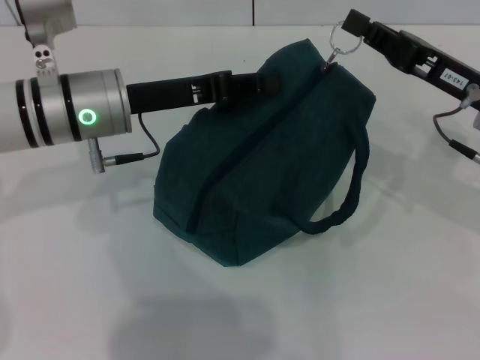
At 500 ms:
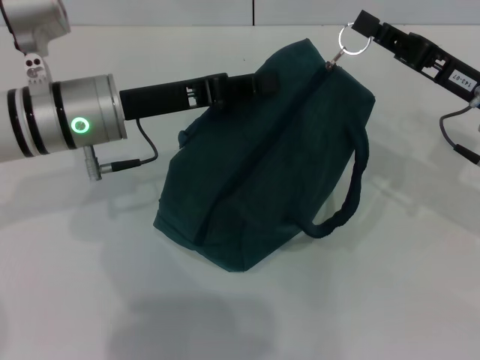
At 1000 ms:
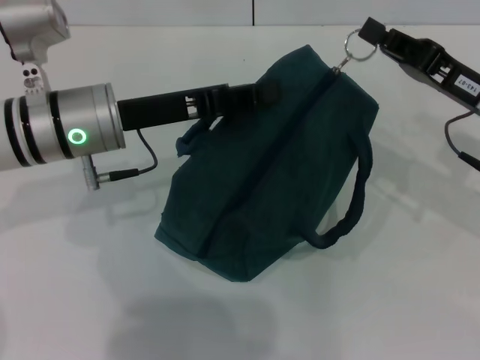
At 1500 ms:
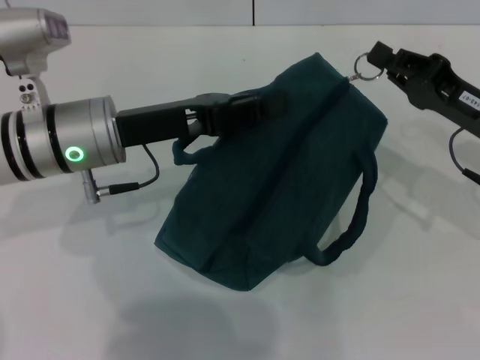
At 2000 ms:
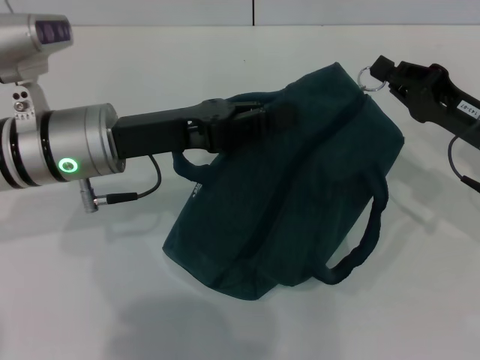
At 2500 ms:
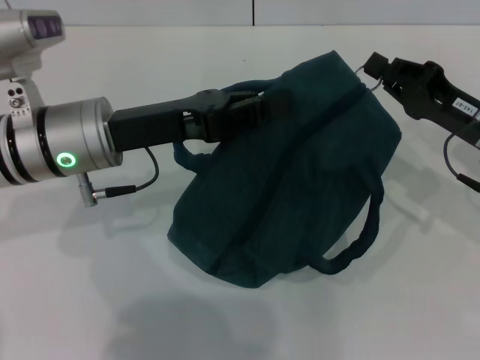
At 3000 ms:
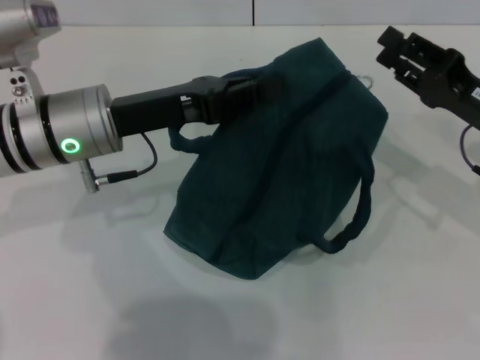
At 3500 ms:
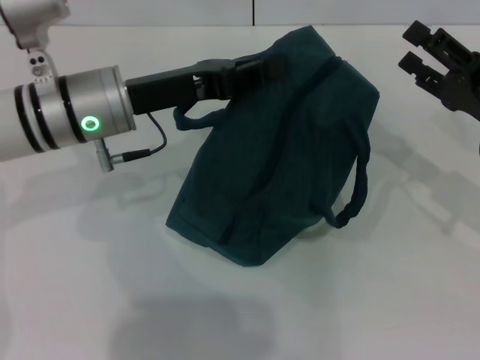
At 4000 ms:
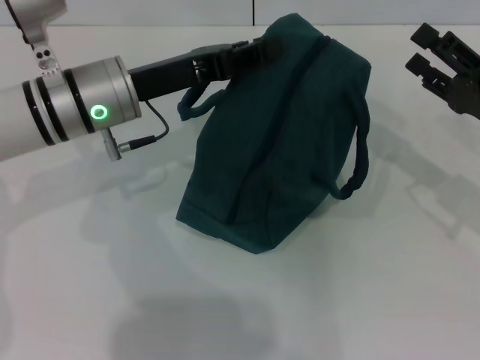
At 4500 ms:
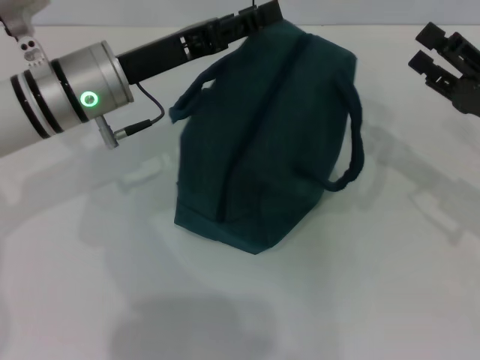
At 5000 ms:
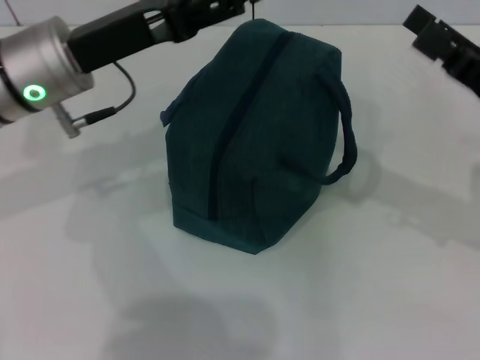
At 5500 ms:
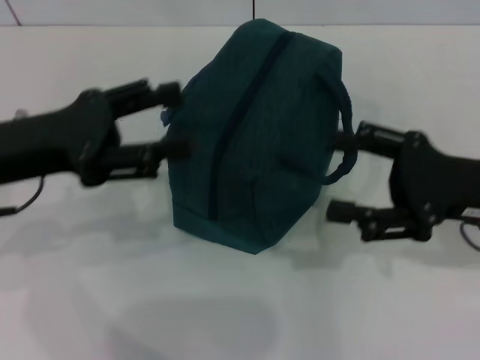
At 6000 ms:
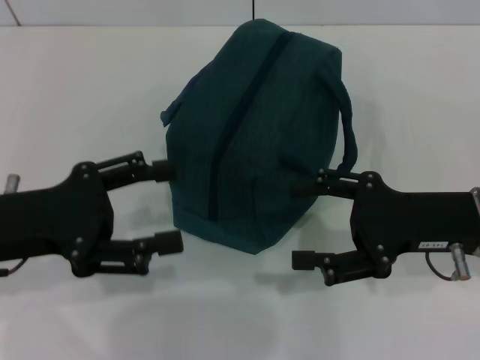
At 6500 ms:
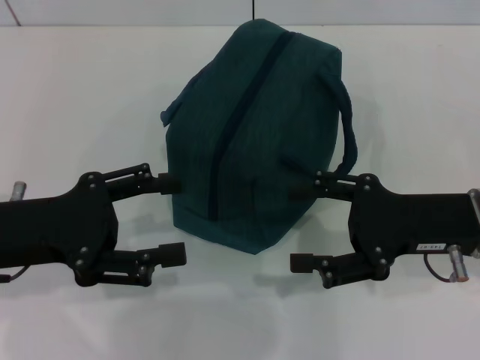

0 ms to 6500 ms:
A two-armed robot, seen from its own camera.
Step, 0 ms to 2500 ms: Zip up the lunch bag with your right hand.
Step, 3000 ms to 4000 ms: Hold the lunch bag with your left hand.
0 ms to 2000 ms: The right gripper moves roughly 5 cm.
2000 ms to 4500 ms: The left gripper opens its fingers. Meanwhile the right gripper opens.
4500 ms to 6500 ms: The right gripper moves to the left, roughly 5 cm. The left gripper travels backward and to the left by roughly 15 cm, and opens.

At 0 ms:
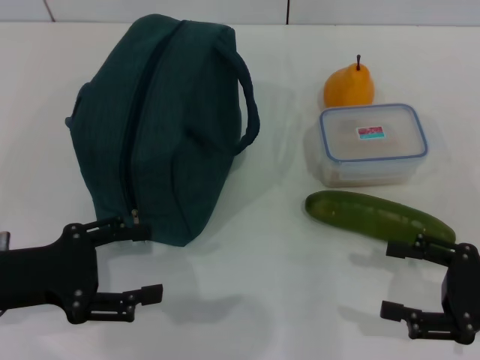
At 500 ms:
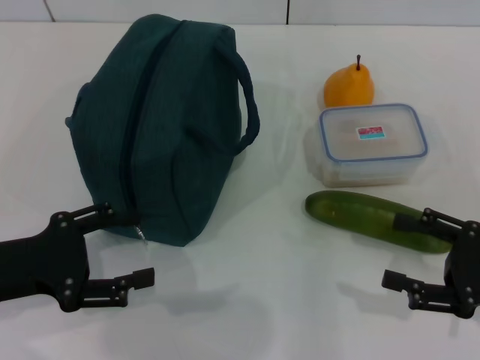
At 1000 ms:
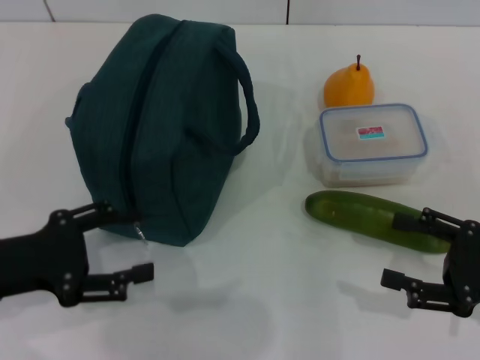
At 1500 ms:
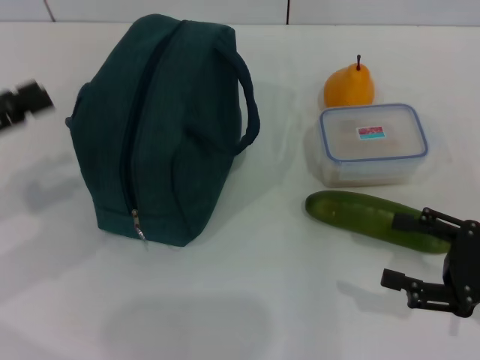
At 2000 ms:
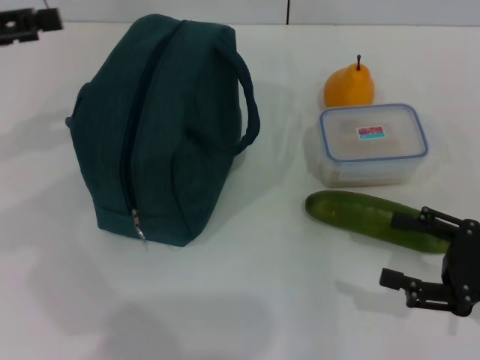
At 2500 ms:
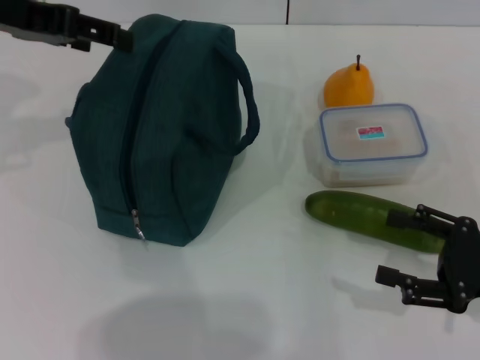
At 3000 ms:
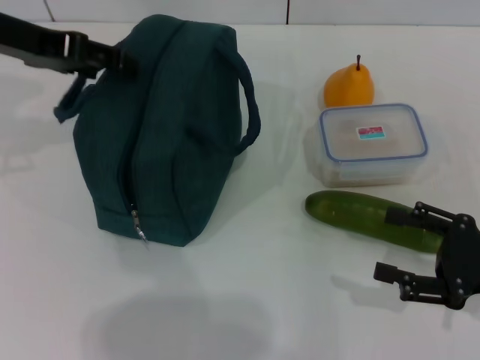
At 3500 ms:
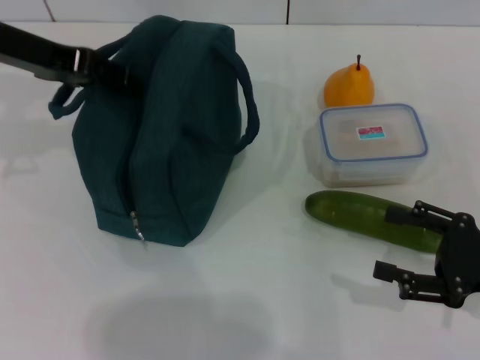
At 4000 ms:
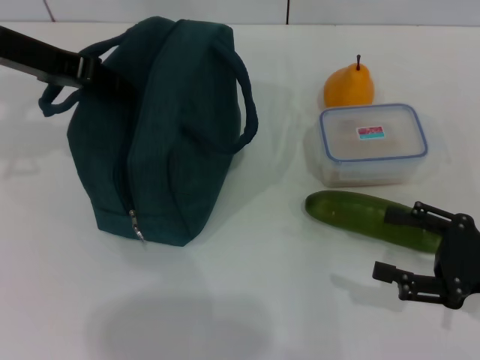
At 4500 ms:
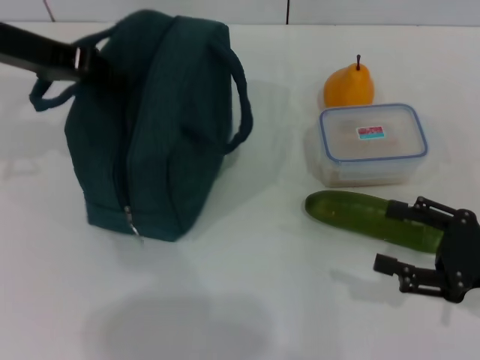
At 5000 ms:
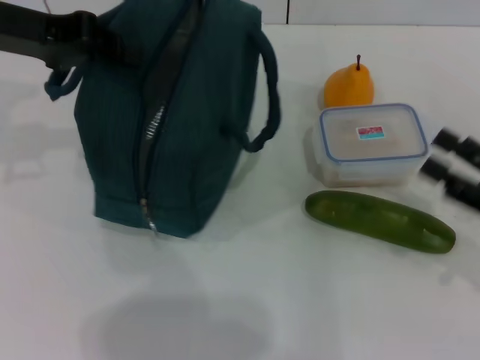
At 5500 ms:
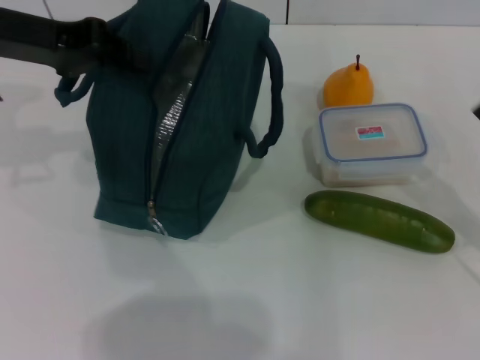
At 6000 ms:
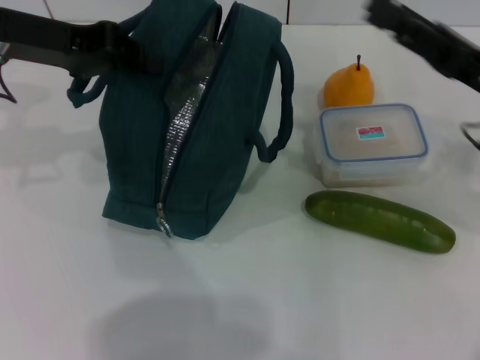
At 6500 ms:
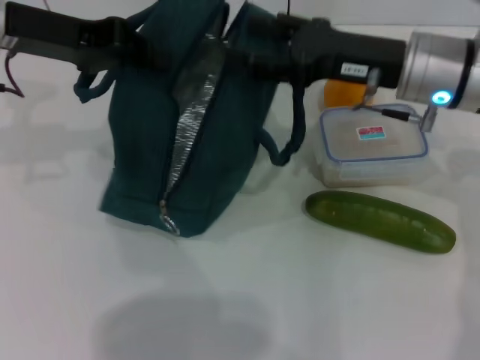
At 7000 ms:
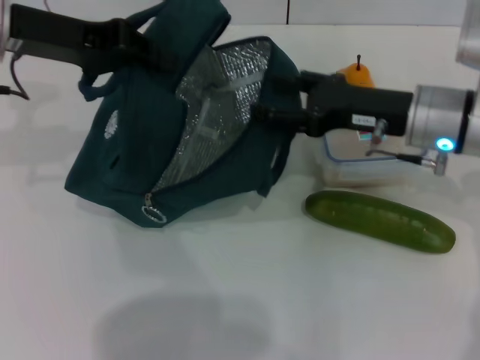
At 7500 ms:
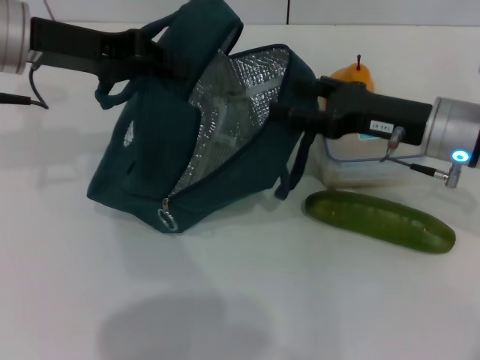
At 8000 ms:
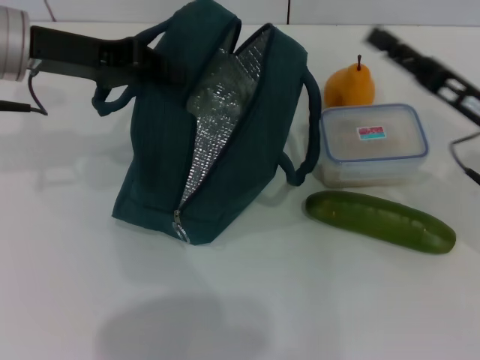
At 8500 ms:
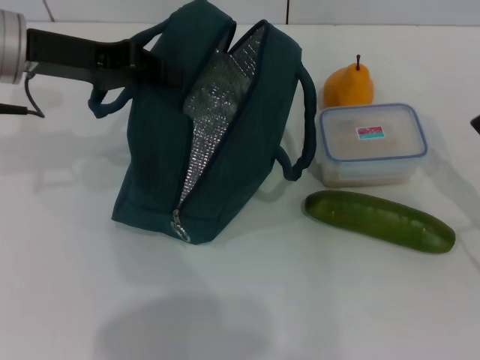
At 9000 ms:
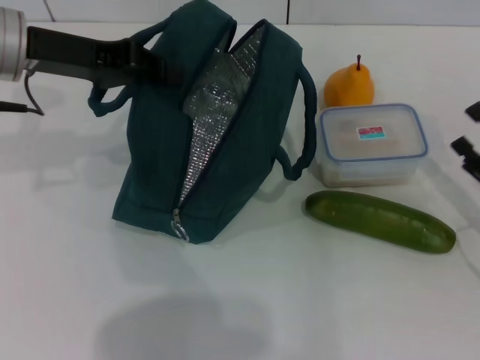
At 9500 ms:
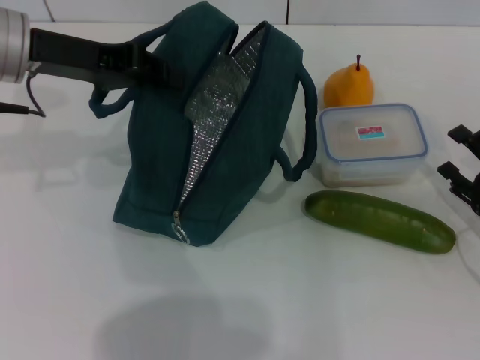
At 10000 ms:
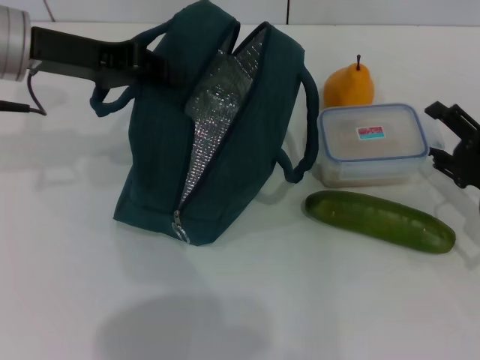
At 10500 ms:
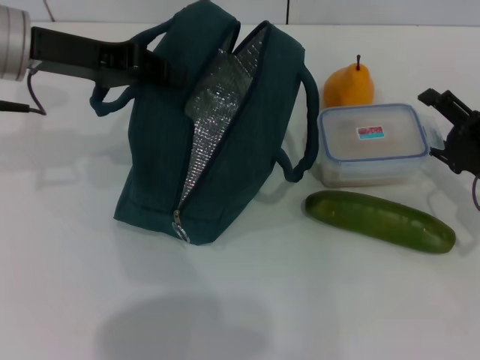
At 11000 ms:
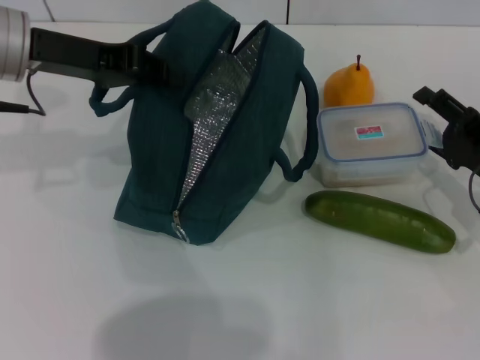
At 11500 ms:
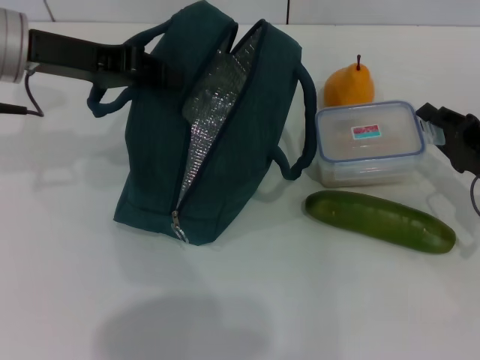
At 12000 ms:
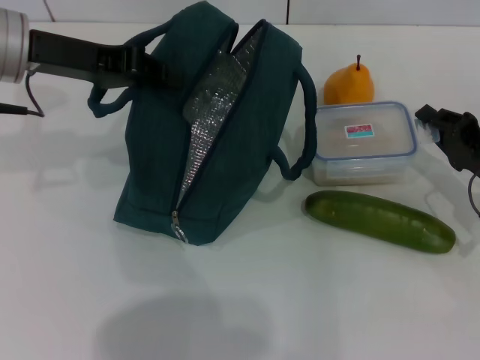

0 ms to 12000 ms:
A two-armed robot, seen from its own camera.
Step, 0 ms to 5500 ms: Hold the lunch bag with your left hand.
0 ms to 2000 ms: The left gripper heads upward and forward, covering approximately 20 cm.
2000 ms to 4000 ms: The left gripper heads to the right and forward, covering about 10 cm, and closes.
4000 ms to 6000 ms: The left gripper closes up, while the right gripper shifts about 15 cm forward, upward and to the left.
6000 ms to 8000 ms: The right gripper goes to the left and returns, roughly 10 cm each way.
8000 ms to 10000 ms: The right gripper heads downward, covering roughly 5 cm.
10000 ms to 12000 ms: The right gripper closes its fingers.

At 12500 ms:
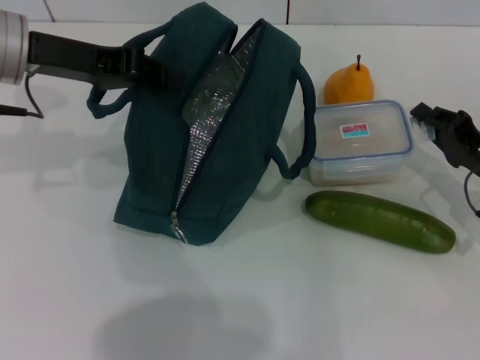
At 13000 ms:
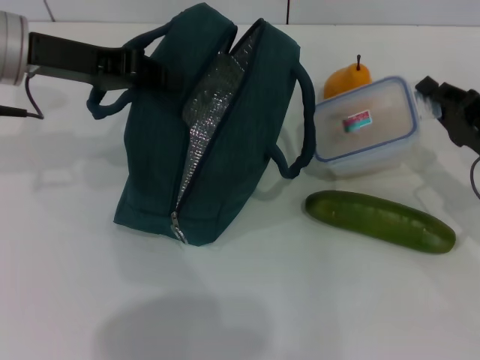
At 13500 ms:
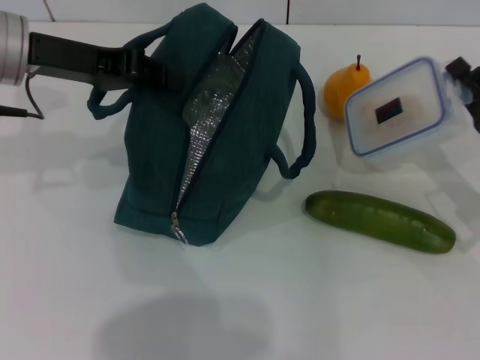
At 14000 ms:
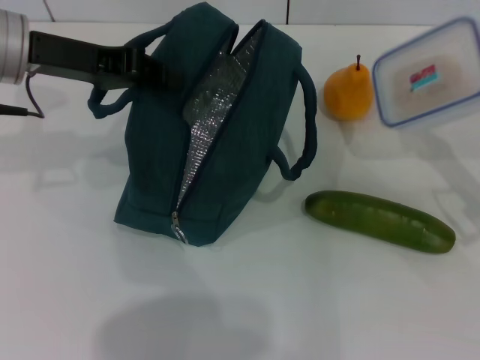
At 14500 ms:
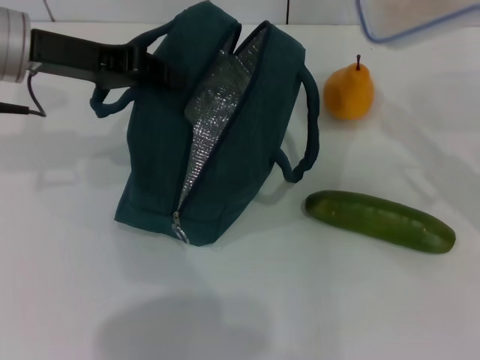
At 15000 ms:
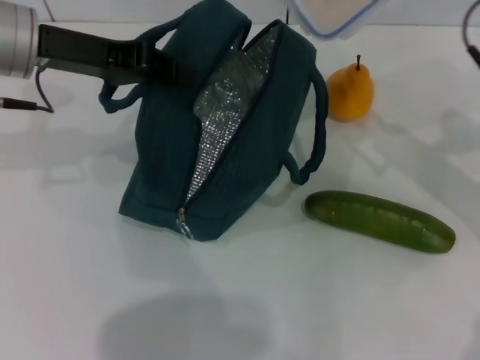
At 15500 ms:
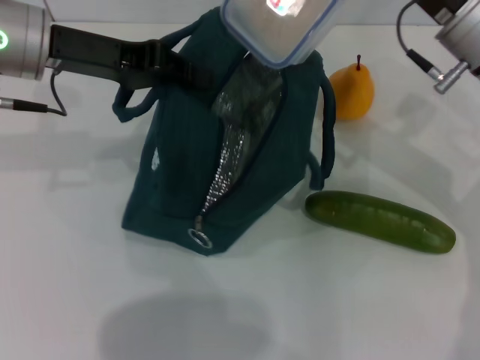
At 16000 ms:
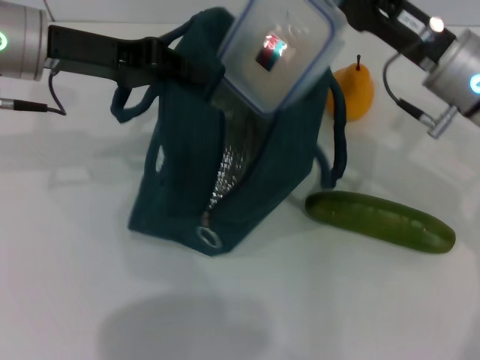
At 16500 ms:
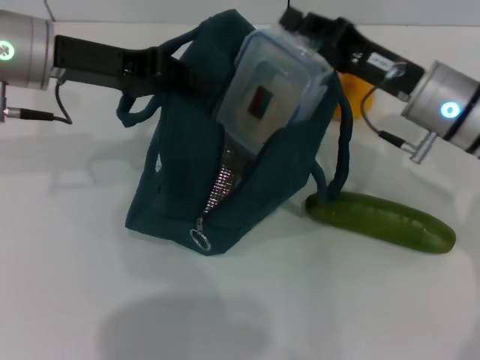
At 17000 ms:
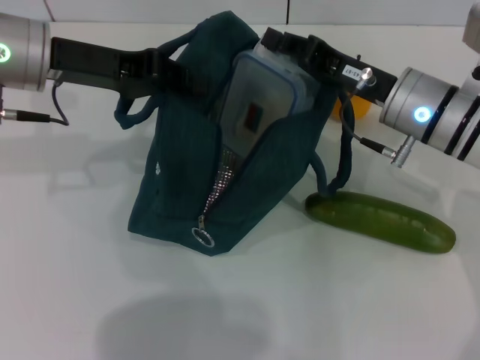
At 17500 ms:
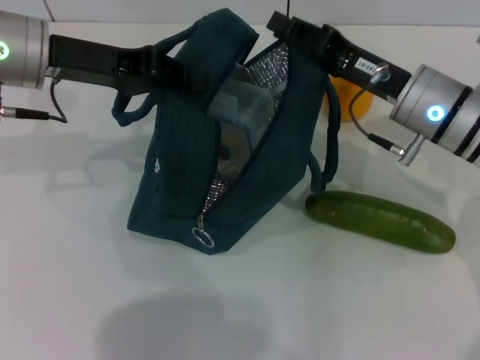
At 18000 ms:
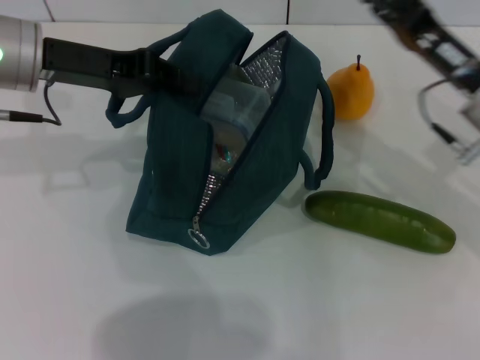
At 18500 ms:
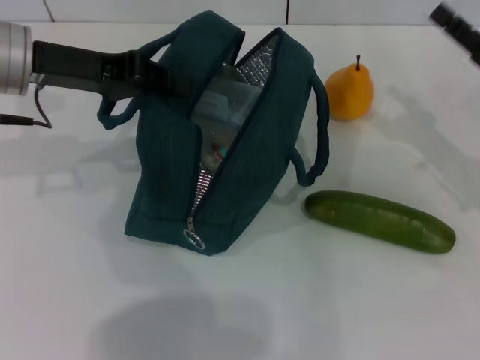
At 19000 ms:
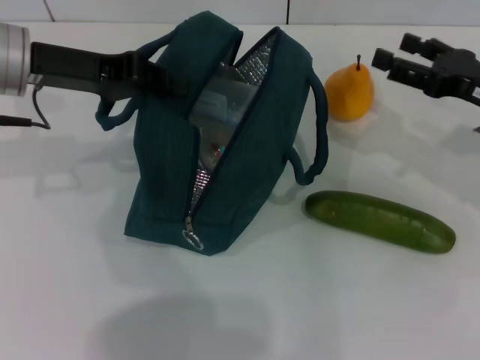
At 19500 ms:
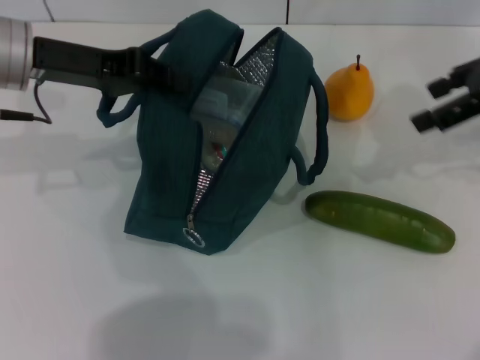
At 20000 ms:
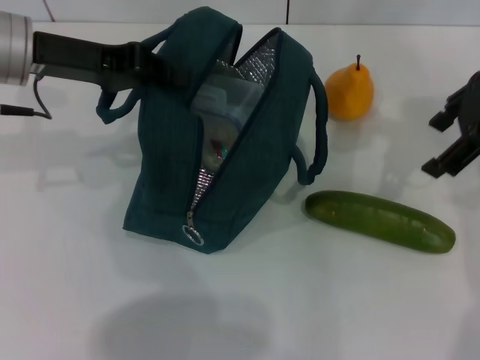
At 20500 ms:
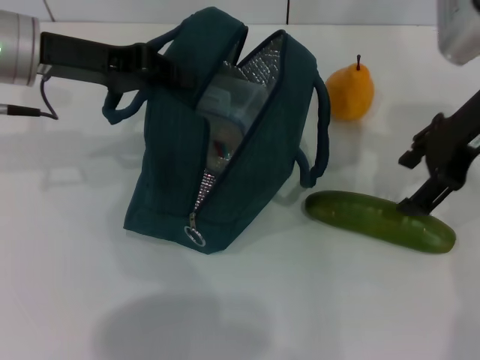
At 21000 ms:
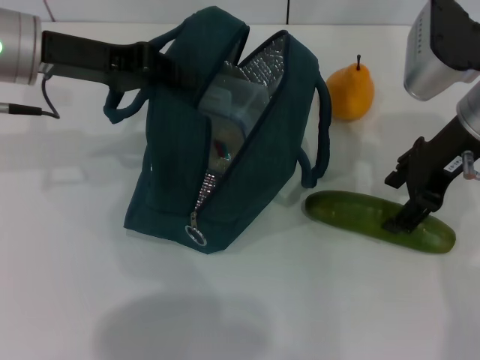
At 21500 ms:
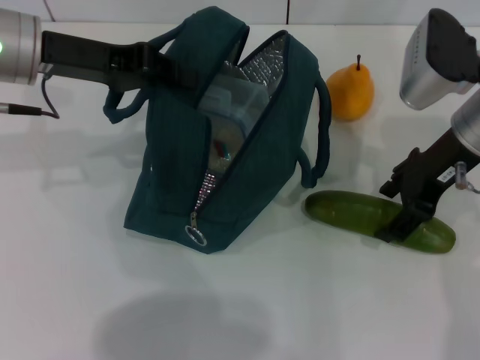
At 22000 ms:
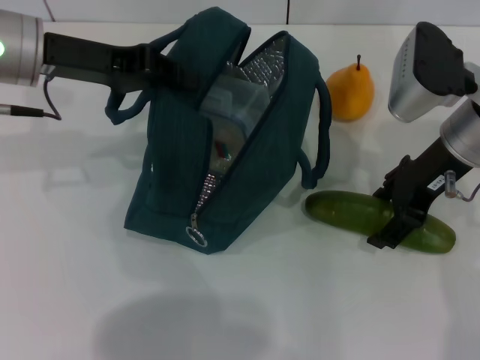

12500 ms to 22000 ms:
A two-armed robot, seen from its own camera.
Step, 12500 ms to 17000 ms: Place the lunch box into the lunch bag with your right hand.
12500 ms to 14500 ms: The right gripper shifts roughly 10 cm upward.
14500 ms to 16500 ms: The right gripper travels to the left by some 10 cm.
18000 ms to 20000 ms: The right gripper is displaced upward by approximately 15 cm, and opens.
20000 ms to 22000 ms: The right gripper is displaced downward by roughly 10 cm.
